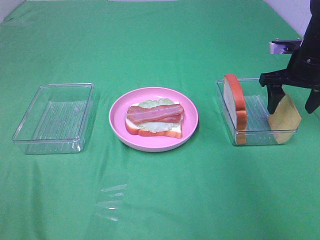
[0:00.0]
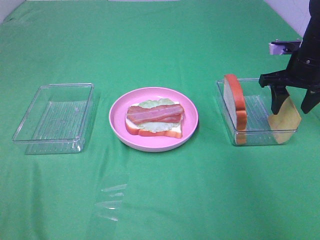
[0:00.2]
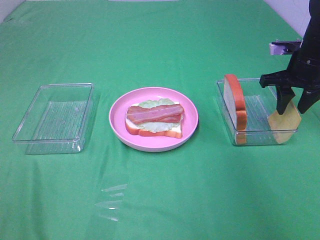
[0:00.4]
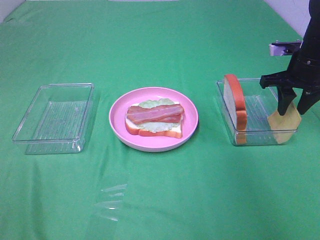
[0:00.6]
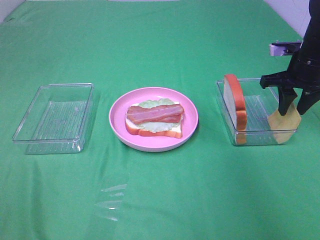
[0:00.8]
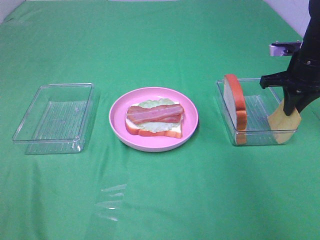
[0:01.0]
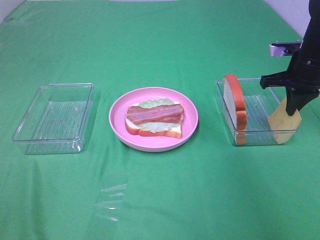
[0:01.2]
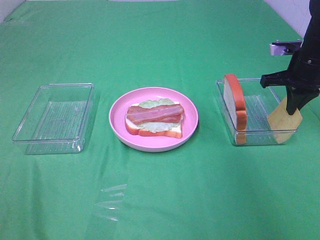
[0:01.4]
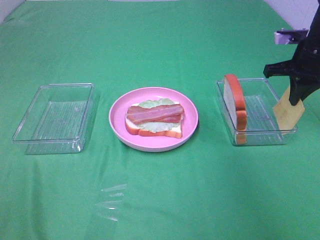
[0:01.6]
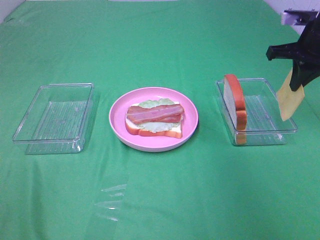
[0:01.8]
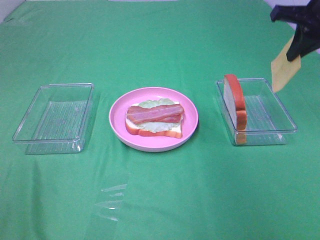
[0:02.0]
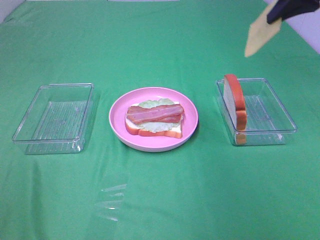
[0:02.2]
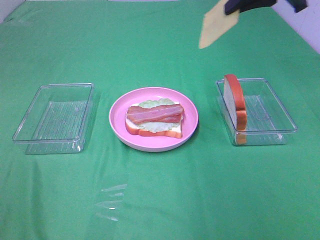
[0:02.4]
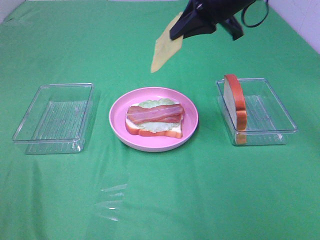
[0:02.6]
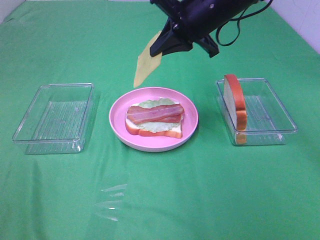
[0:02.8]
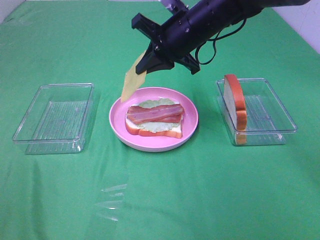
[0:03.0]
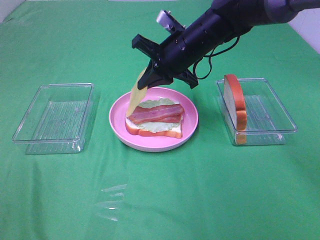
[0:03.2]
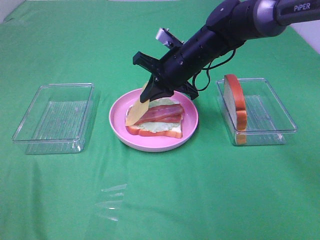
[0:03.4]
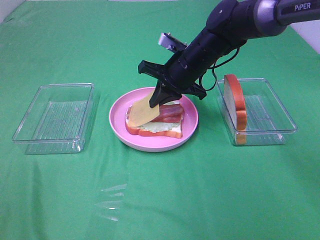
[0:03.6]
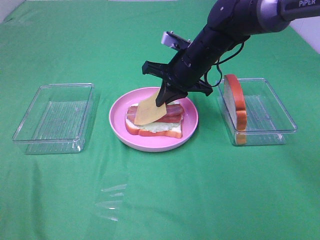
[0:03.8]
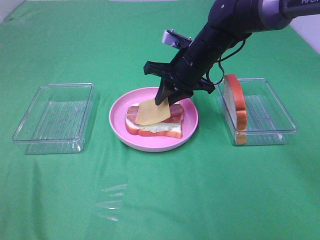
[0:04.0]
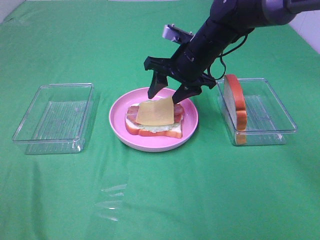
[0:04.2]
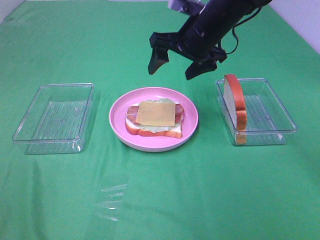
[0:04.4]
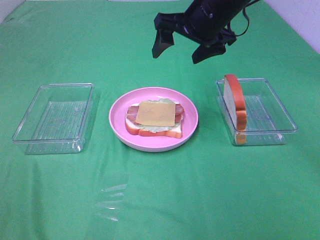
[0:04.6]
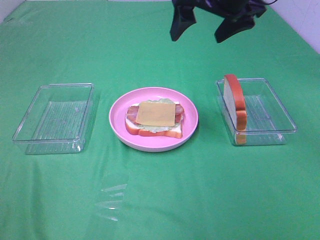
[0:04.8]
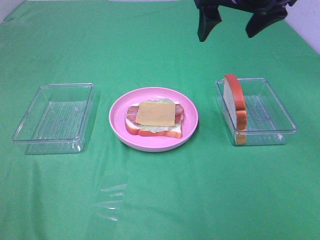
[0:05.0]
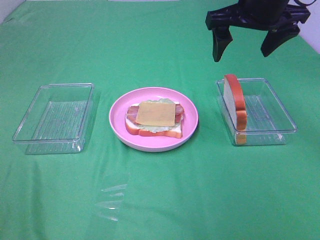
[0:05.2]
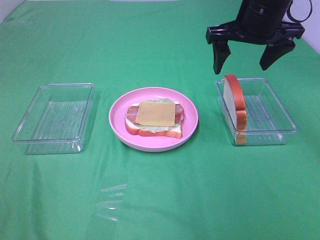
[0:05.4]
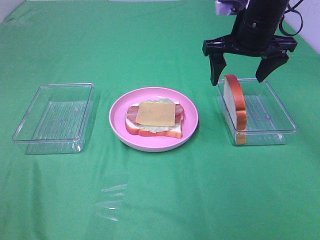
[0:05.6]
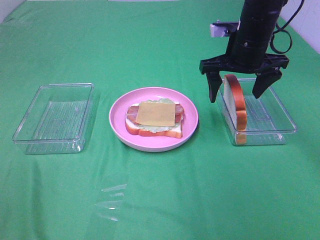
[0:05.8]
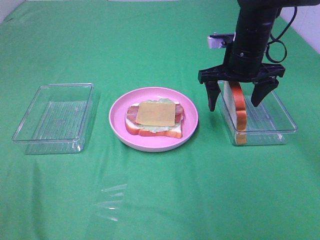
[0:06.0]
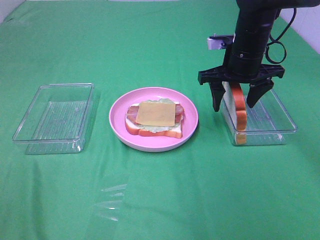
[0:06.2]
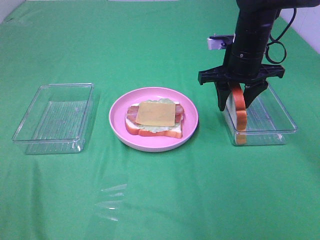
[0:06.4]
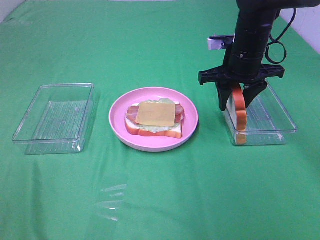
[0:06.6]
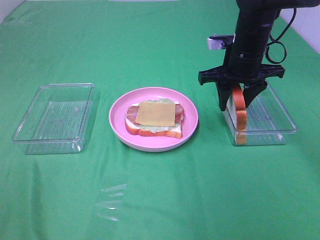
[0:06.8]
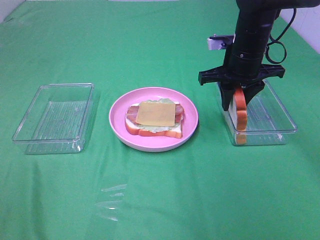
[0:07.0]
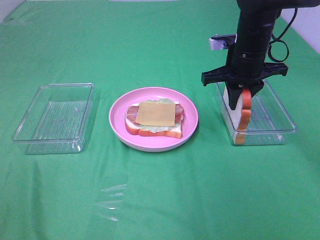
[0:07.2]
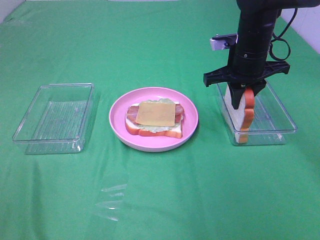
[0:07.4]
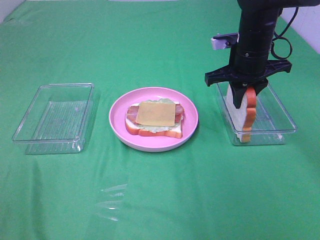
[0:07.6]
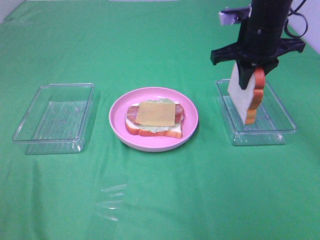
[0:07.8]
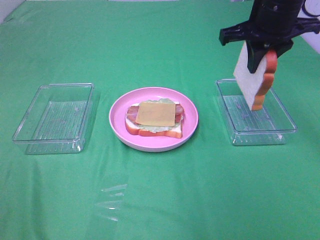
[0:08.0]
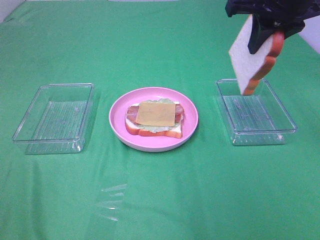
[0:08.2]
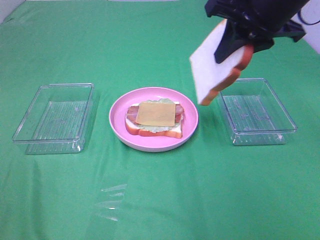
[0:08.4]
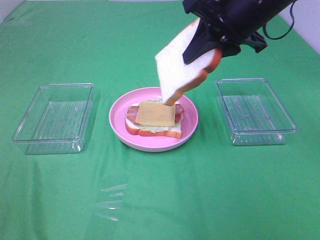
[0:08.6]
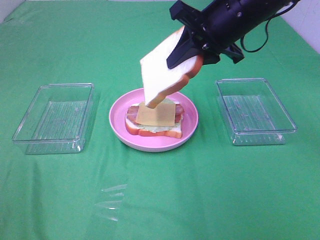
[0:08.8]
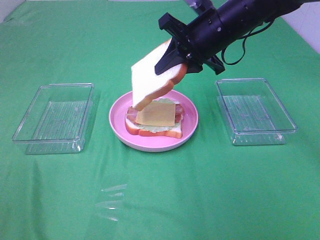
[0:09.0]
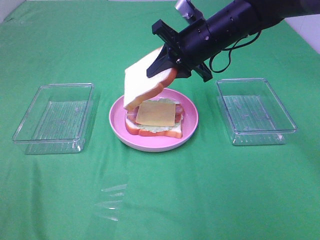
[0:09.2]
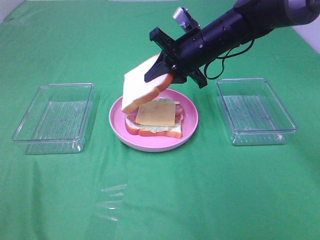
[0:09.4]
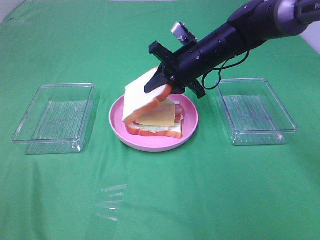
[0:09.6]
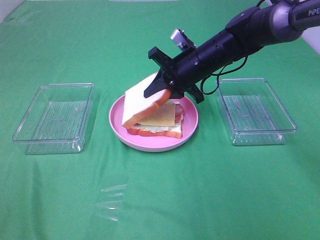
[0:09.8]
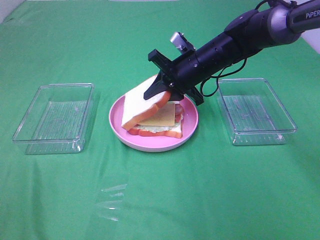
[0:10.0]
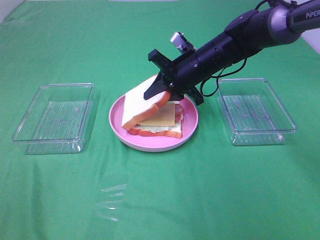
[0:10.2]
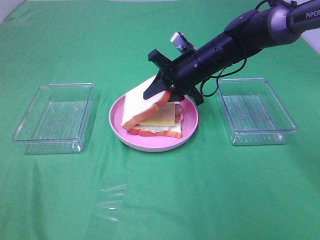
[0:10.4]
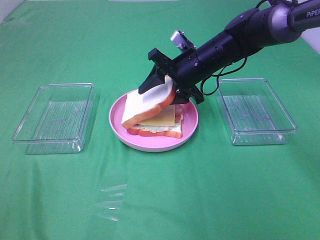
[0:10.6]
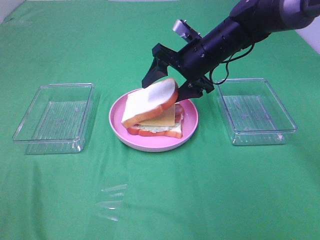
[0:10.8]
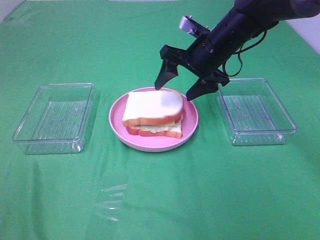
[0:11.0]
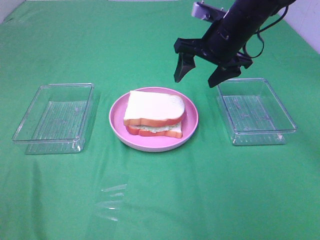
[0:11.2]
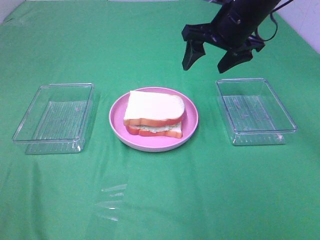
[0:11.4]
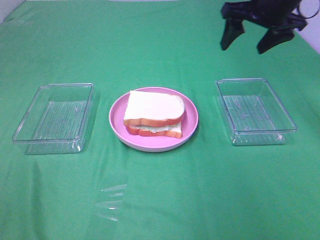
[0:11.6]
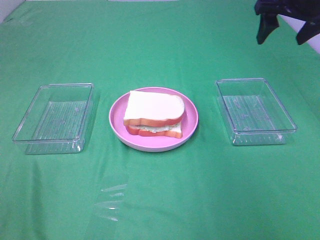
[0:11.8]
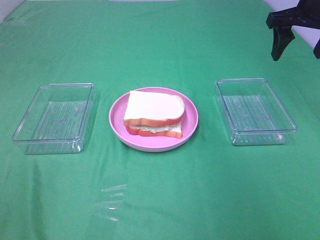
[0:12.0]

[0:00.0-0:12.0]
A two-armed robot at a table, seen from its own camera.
Task of the whole recording: Make sandwiches.
Step, 1.4 to 4.2 s: Right hand:place the cheese slice on top of the bacon.
Step, 4.4 to 7.2 s: Right hand:grab the bread slice.
Step, 7.4 to 11.0 s: Right hand:place the bread slice on the cheese slice.
0.0 to 1.6 s: The right gripper closes its fingers.
1.6 to 3.0 s: The right gripper shifts approximately 20 cm to the left.
3.0 to 4.4 s: The right gripper reaches some 5 cm downward, then returns, and opens its fingers.
4.4 to 6.0 s: The right gripper moves to the right, roughly 5 cm, and travels upward and back again, about 10 cm each way.
6.0 to 7.6 s: The right gripper closes up.
7.6 to 9.0 s: The right gripper shifts approximately 5 cm to the left, and reaches approximately 15 cm upward, then returns.
9.0 to 10.4 s: The right gripper goes roughly 10 cm downward.
10.4 to 12.0 s: The right gripper heads to the right and upward, covering approximately 25 cm, and opens up.

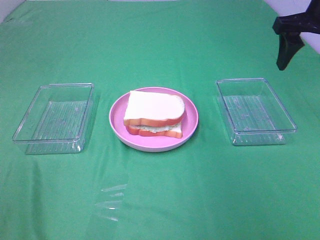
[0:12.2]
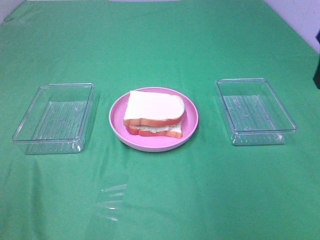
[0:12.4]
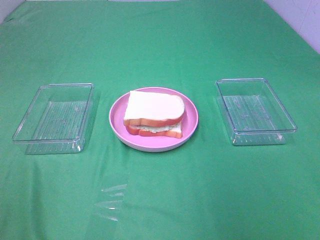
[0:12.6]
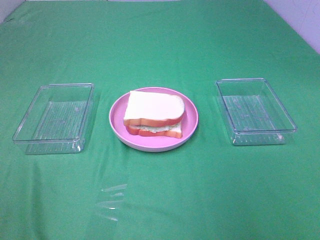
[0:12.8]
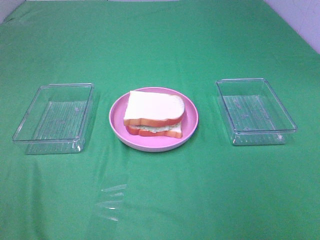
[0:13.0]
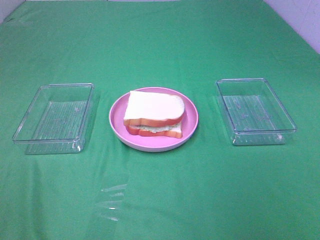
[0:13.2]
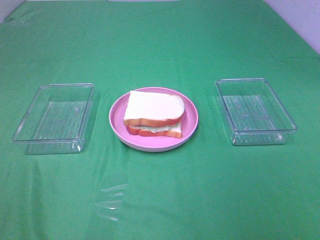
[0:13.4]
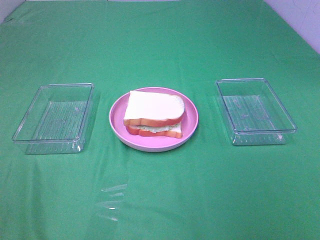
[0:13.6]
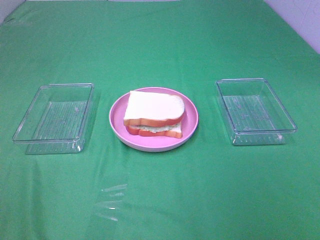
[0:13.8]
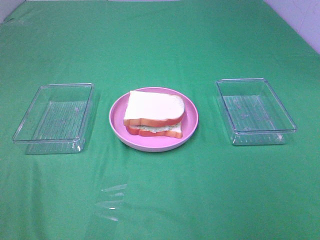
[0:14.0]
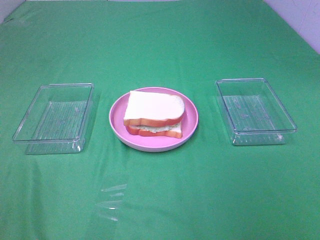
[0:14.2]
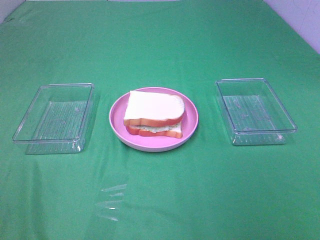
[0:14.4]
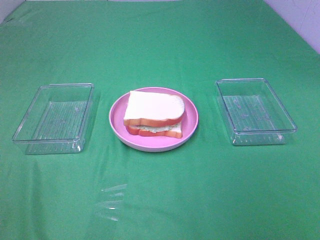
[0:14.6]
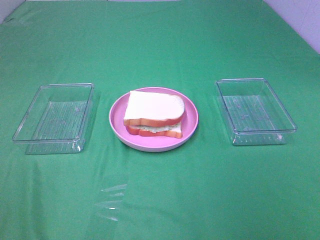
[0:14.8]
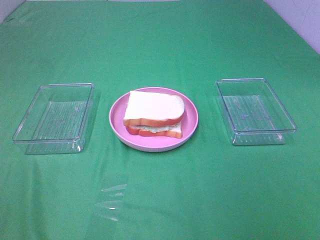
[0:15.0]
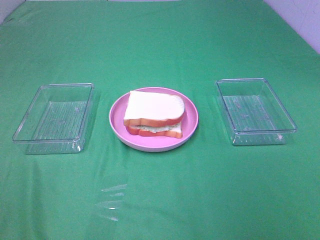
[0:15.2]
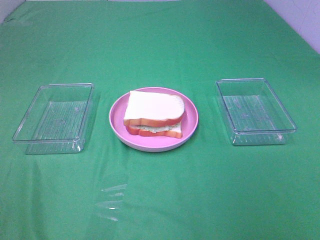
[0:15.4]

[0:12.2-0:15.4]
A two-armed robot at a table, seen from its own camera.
Task of the whole recording: Make sandwiches.
12.2 to 13.8 s: The right gripper moves backward, roughly 35 cm.
13.8 to 15.4 s: The two grippers keep their place.

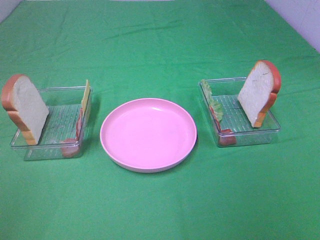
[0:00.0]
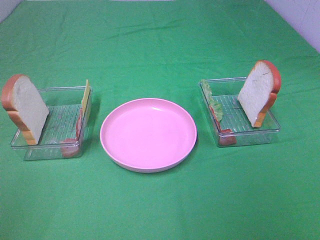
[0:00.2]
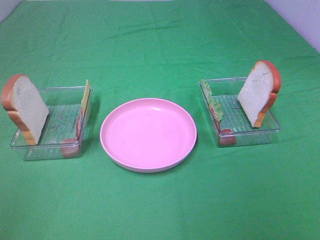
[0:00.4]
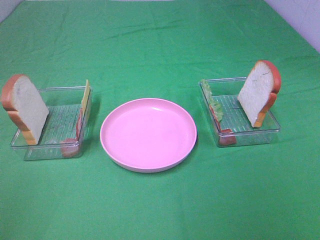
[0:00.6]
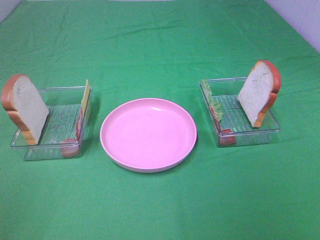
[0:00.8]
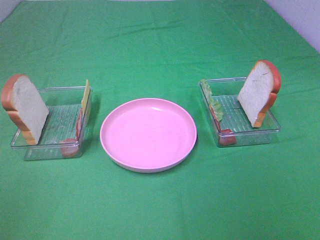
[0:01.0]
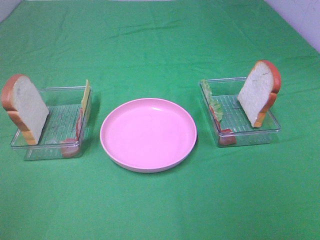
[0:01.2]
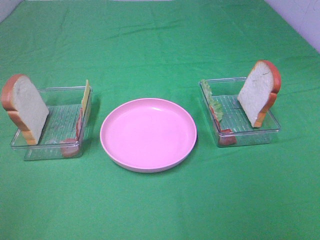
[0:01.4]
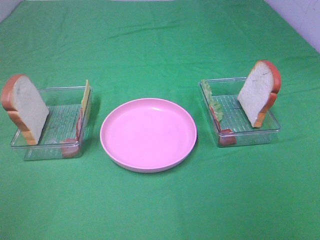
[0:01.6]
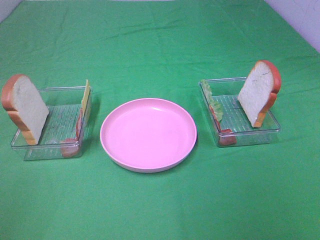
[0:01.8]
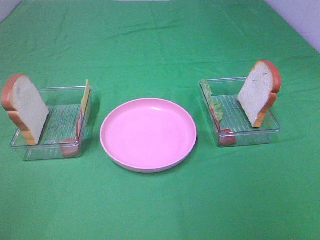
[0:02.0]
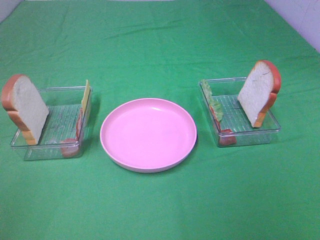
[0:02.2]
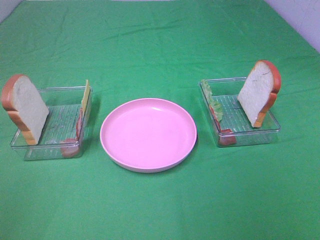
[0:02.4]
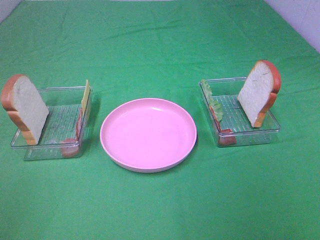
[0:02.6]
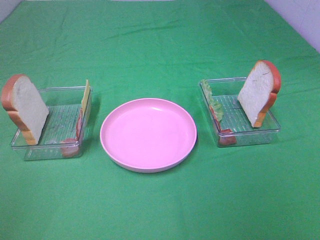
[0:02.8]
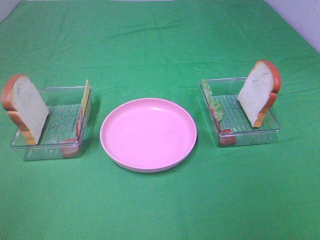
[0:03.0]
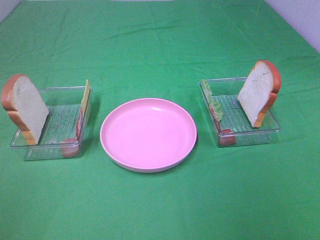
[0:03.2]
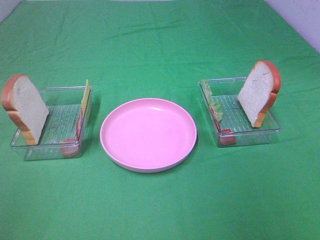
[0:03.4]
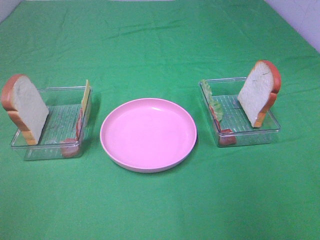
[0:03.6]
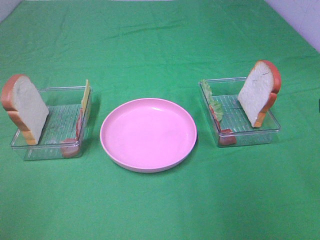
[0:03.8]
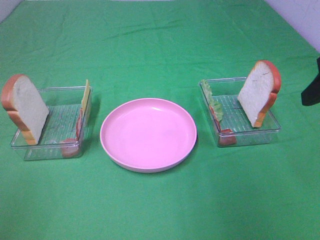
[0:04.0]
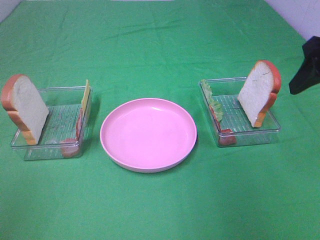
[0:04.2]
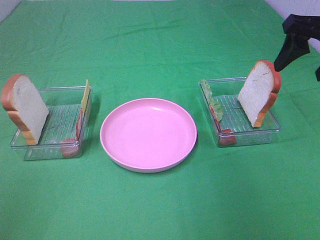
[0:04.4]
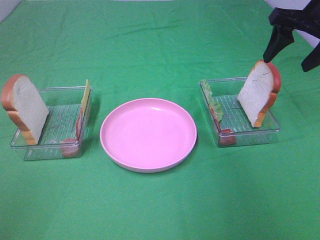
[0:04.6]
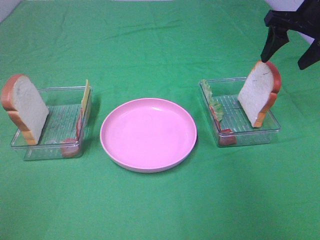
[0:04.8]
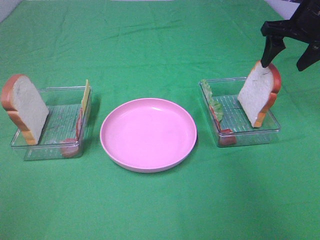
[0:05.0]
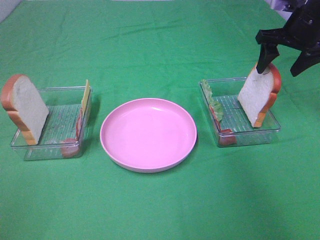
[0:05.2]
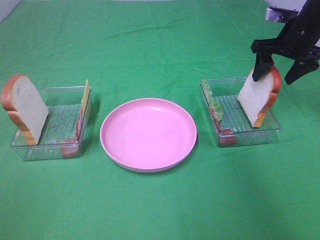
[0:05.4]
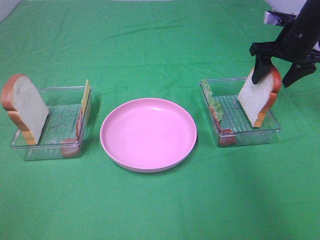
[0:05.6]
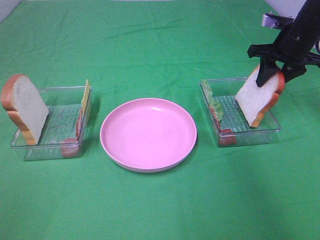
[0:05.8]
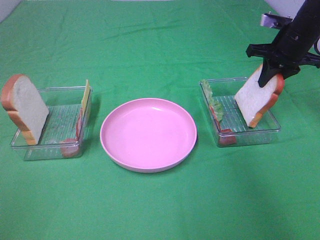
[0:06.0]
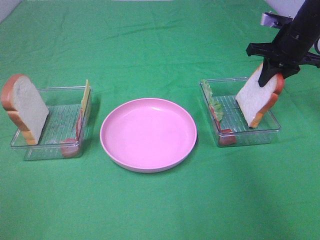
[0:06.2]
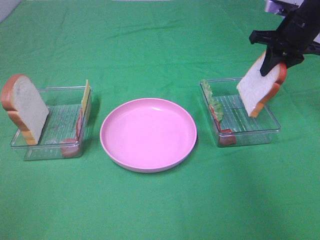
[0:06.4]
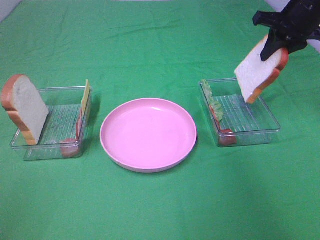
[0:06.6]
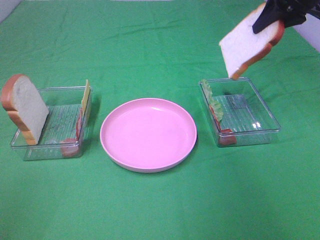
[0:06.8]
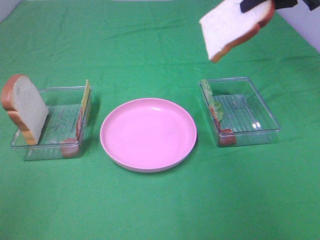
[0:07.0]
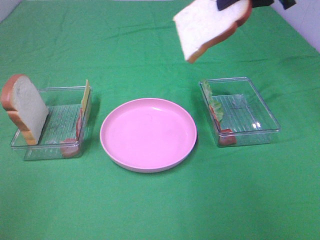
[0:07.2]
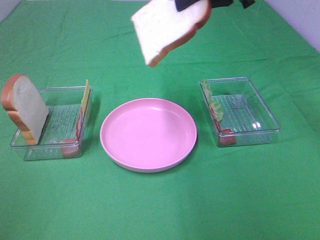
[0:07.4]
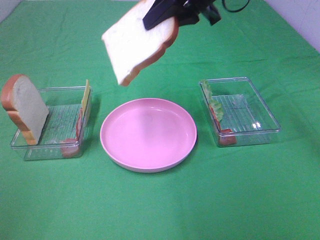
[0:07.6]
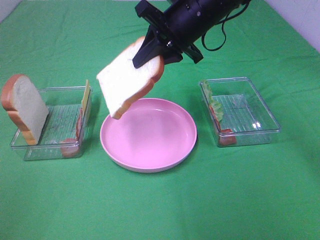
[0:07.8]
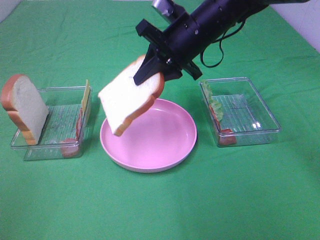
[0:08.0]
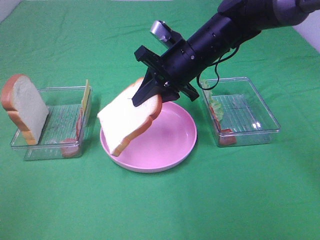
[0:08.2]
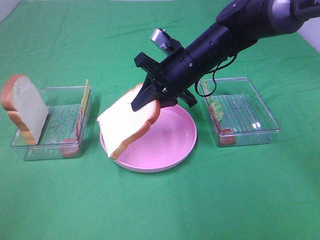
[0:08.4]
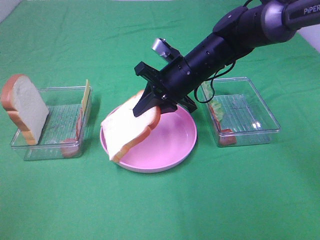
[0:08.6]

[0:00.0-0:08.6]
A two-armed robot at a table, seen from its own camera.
Task of the whole recording: Make sandwiches.
Step, 0.0 to 6.0 s: Right hand:grab the bread slice.
0.0 to 2.8 s: Both grippers stay put.
2.8 to 4.4 s: The right gripper shifts approximately 35 cm forward.
4.4 to 5.8 s: The right gripper goes about 15 cm forward and downward, and closes.
5.8 to 7.2 s: The right gripper goes roughly 15 cm upward and to the left.
7.2 to 8.6 s: The right gripper heads downward and to the left, covering roughly 25 cm.
